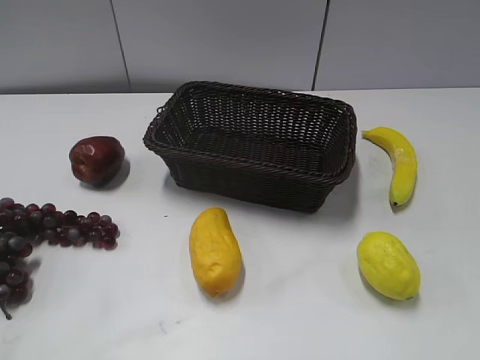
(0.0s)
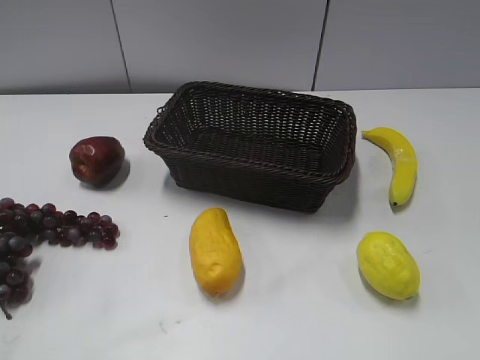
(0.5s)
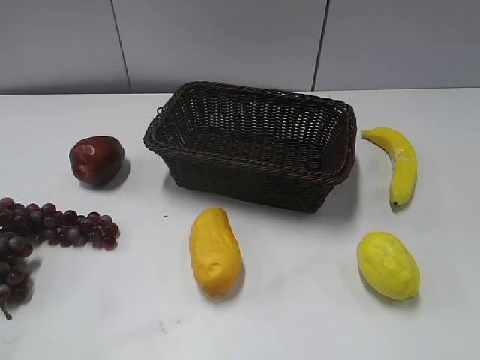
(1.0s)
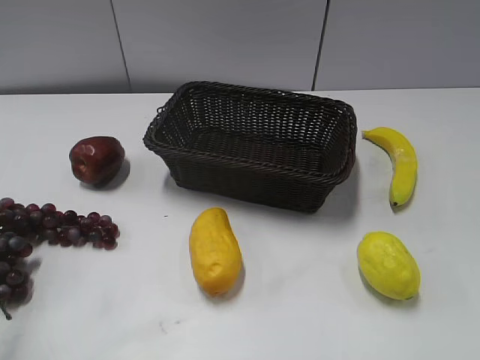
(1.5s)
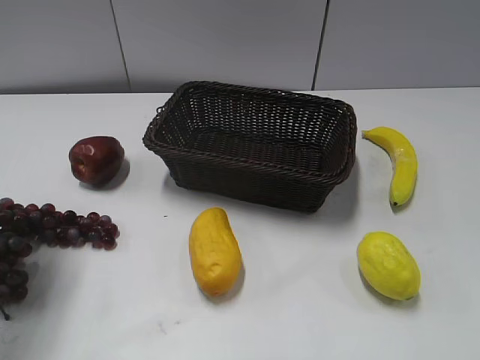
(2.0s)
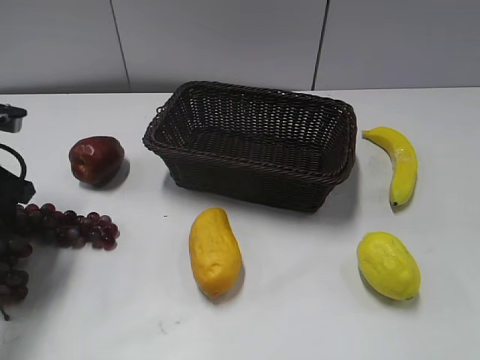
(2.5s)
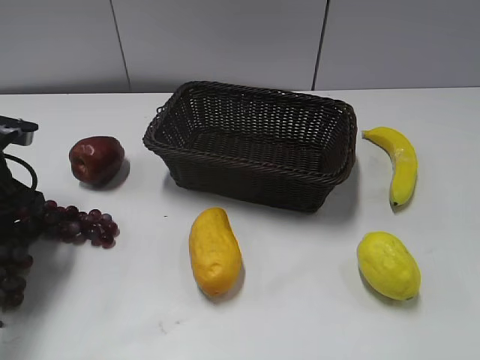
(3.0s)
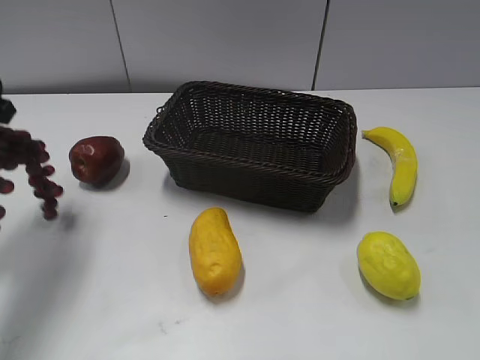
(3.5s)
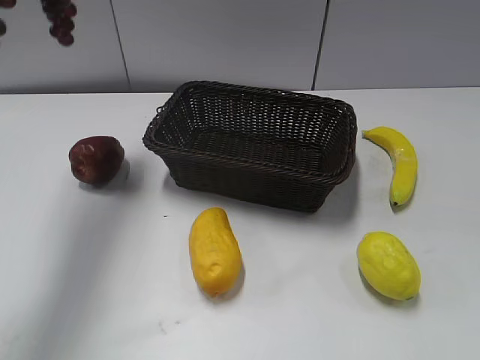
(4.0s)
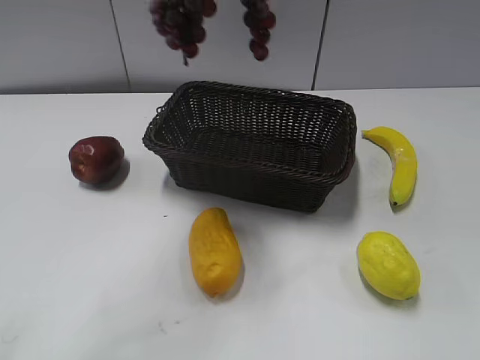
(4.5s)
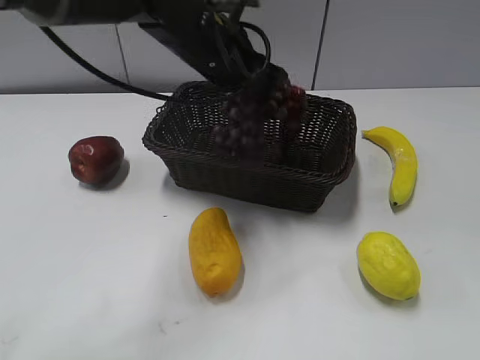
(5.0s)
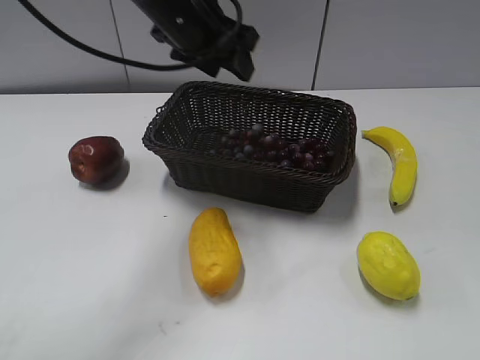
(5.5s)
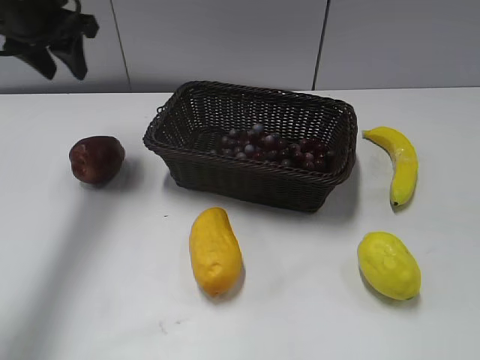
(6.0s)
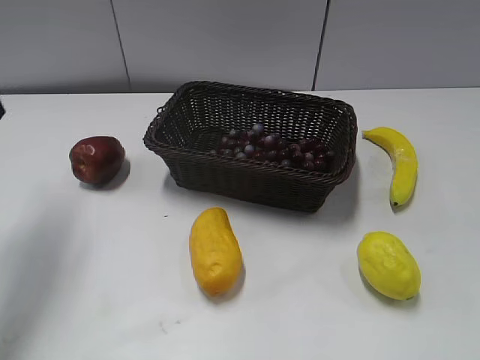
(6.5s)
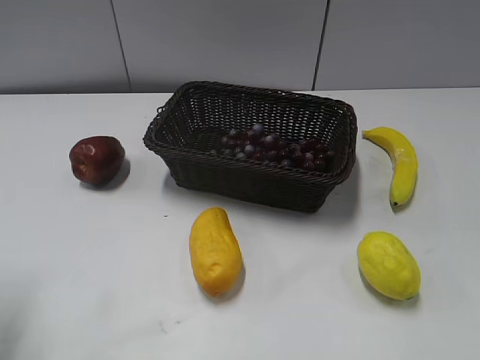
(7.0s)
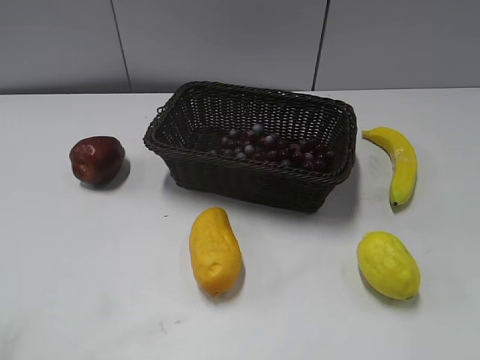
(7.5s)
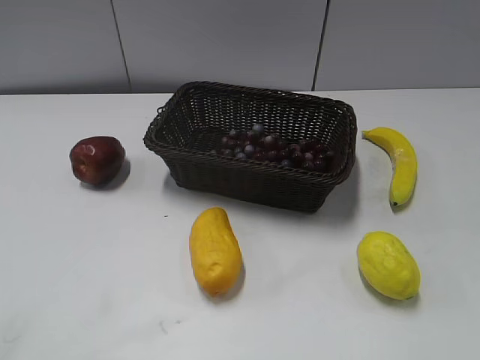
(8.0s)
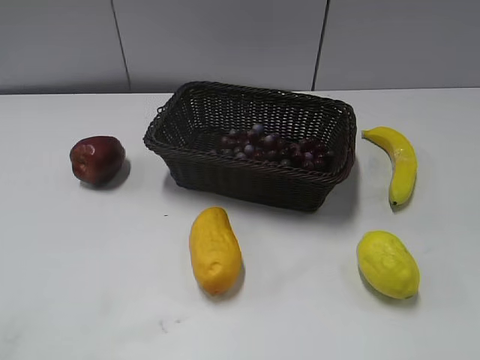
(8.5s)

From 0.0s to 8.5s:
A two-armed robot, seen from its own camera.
Step, from 2.0s to 3.0s: Grasp the grape with left gripper.
Step, from 3.5s to 5.0s: Place the grape in the basket with left gripper.
From 2.0s to 4.0s: The left gripper is displaced upward by approximately 20 cm, and closes its fingers.
From 4.0s to 6.5s: The left gripper travels downward by about 20 cm, goes to the right and returns, about 20 cm each way, and opens its fingers.
From 6.5s to 8.5s: The left gripper travels backward by about 30 cm.
